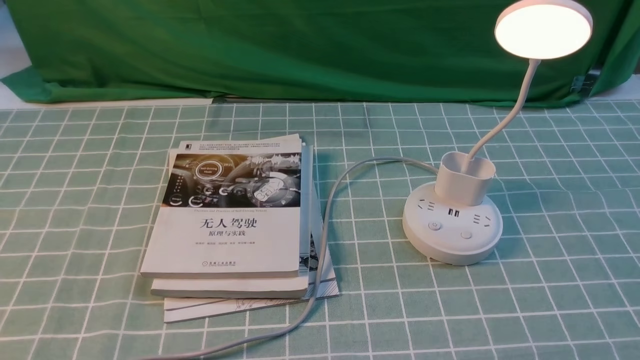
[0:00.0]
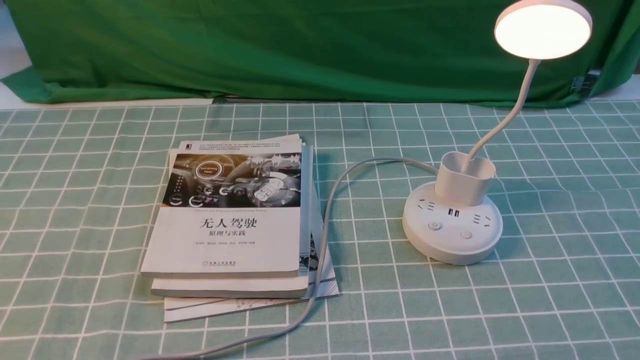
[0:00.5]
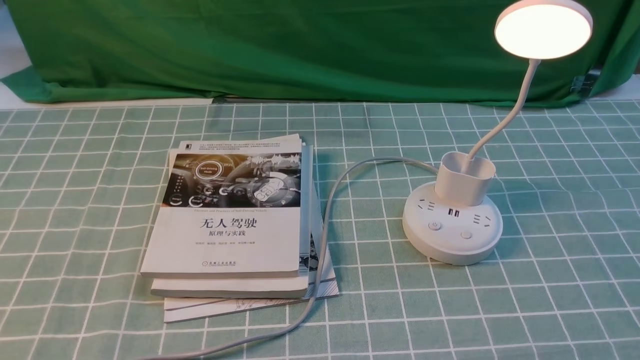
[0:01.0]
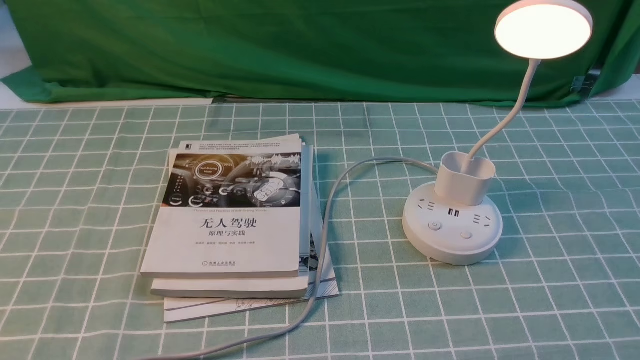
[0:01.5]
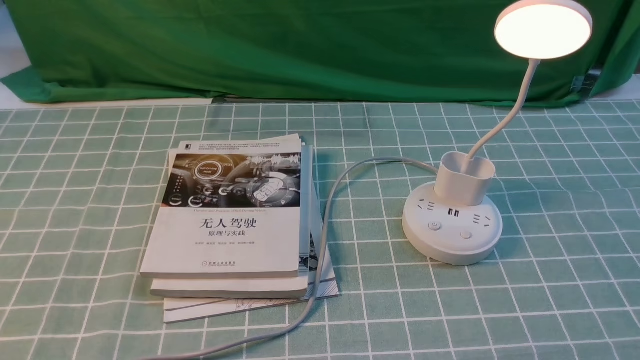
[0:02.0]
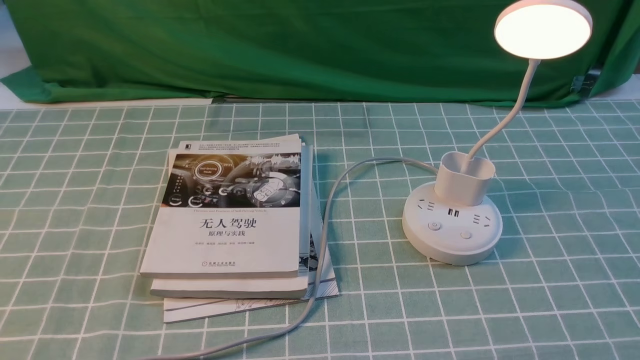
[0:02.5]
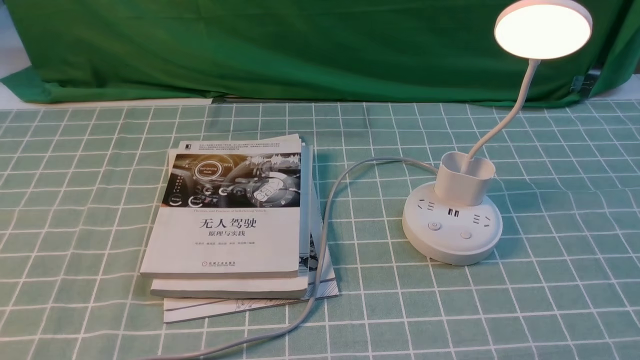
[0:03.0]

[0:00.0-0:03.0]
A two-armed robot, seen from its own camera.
0:01.5 to 0:03.0: Neither gripper changes place.

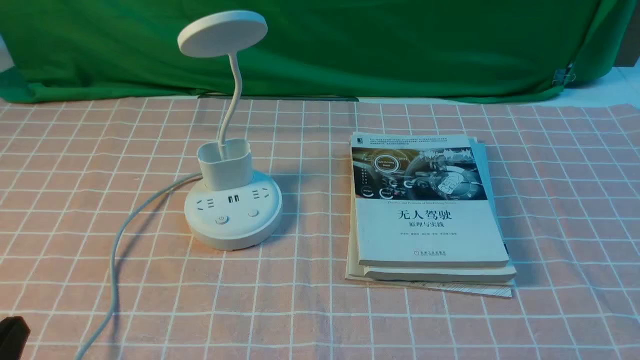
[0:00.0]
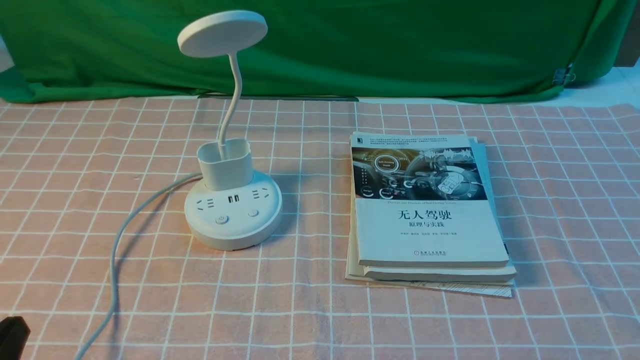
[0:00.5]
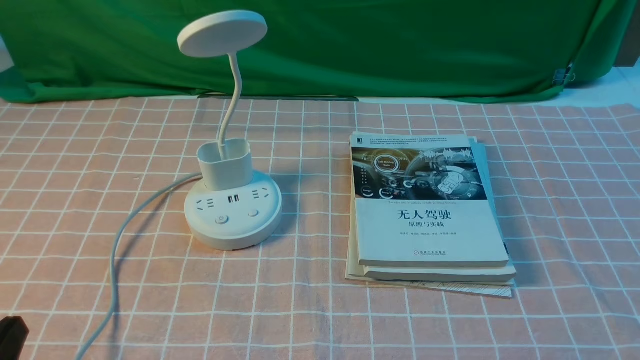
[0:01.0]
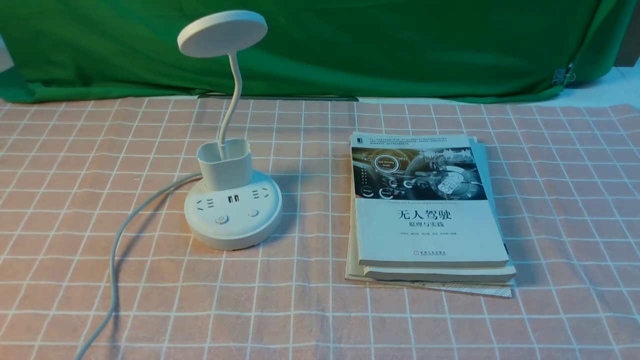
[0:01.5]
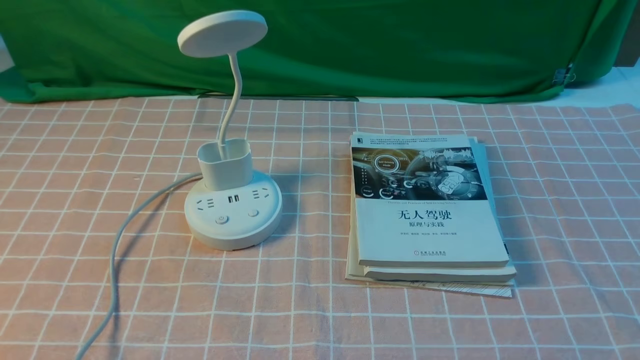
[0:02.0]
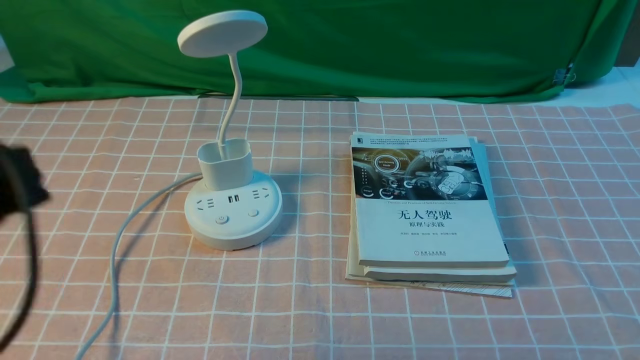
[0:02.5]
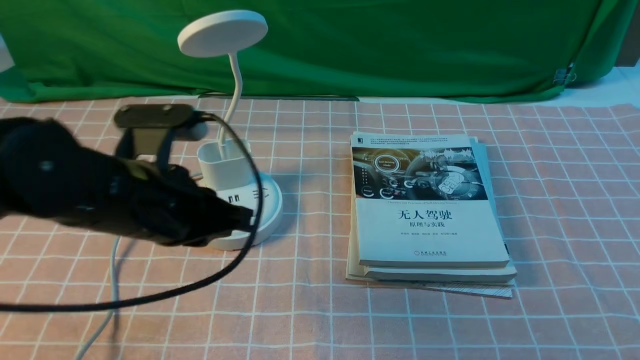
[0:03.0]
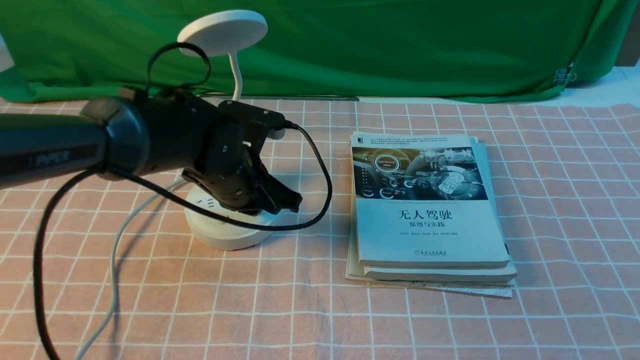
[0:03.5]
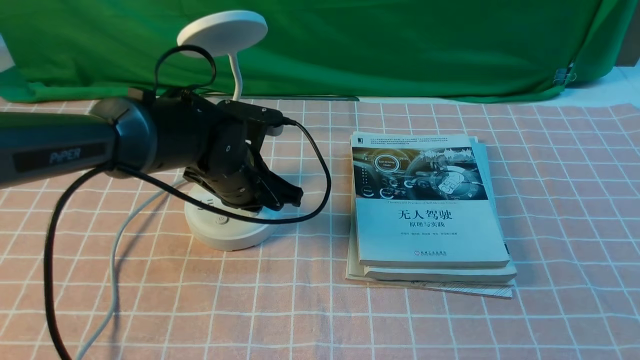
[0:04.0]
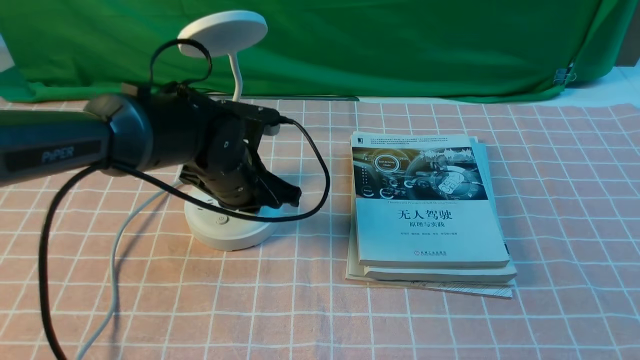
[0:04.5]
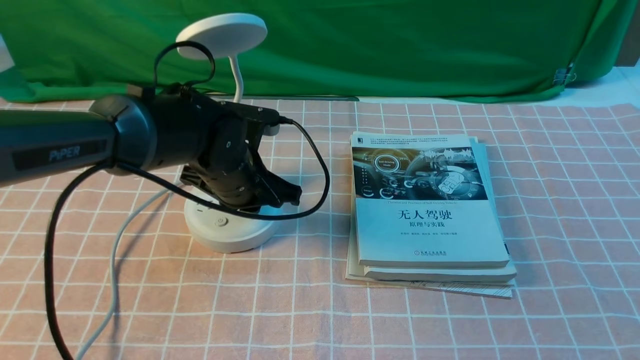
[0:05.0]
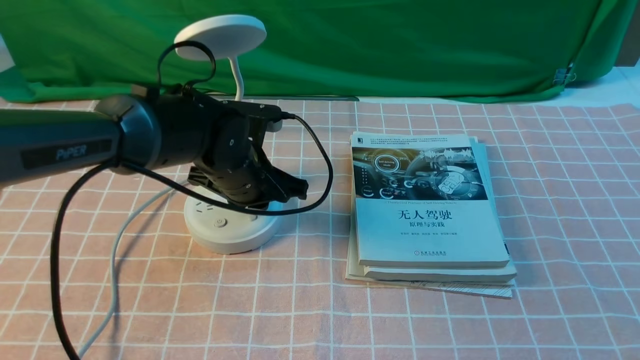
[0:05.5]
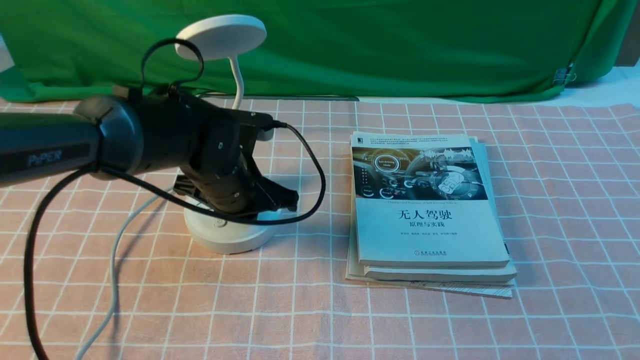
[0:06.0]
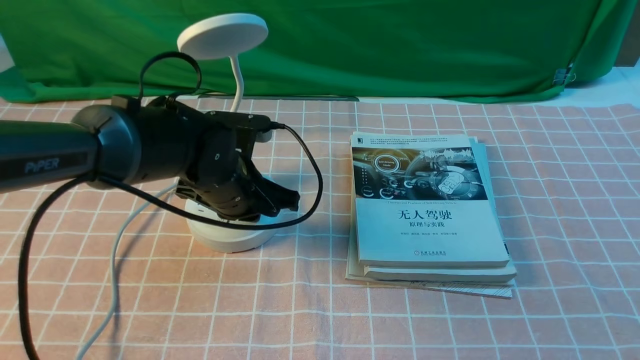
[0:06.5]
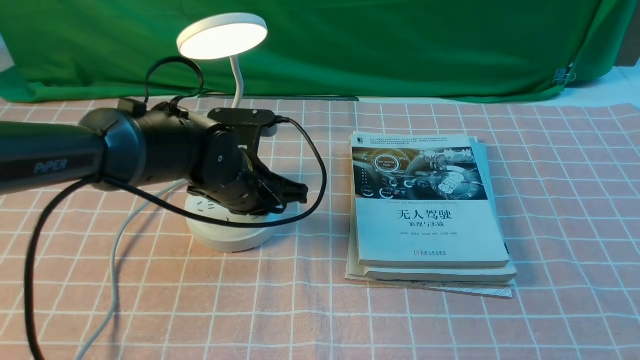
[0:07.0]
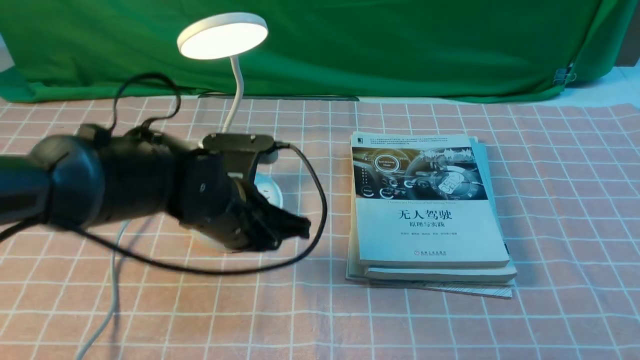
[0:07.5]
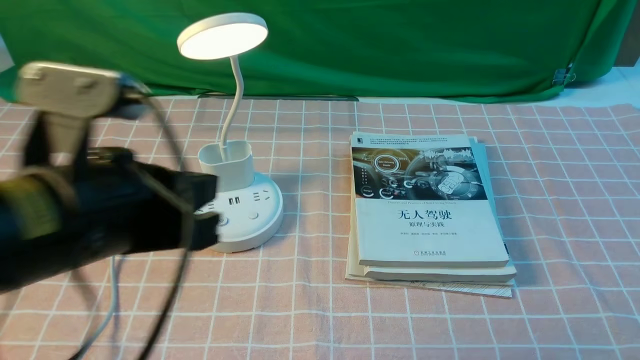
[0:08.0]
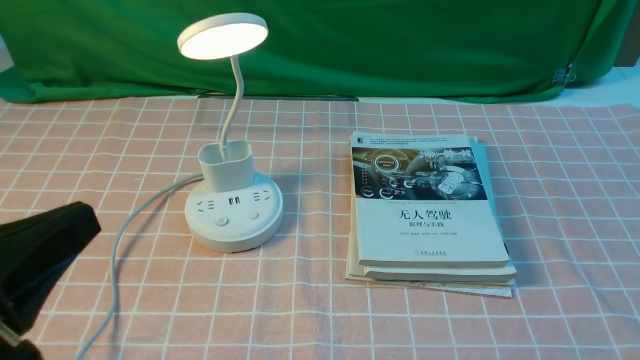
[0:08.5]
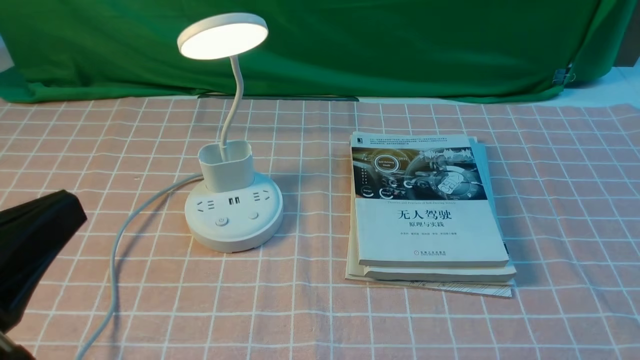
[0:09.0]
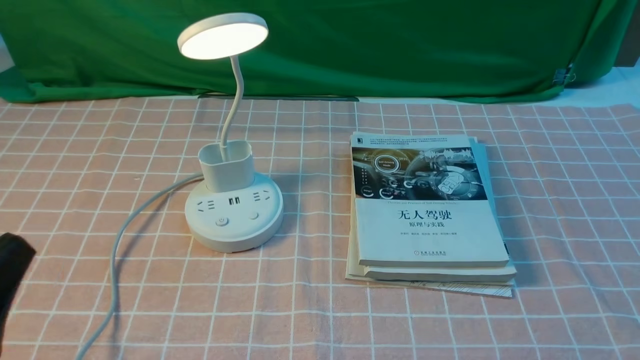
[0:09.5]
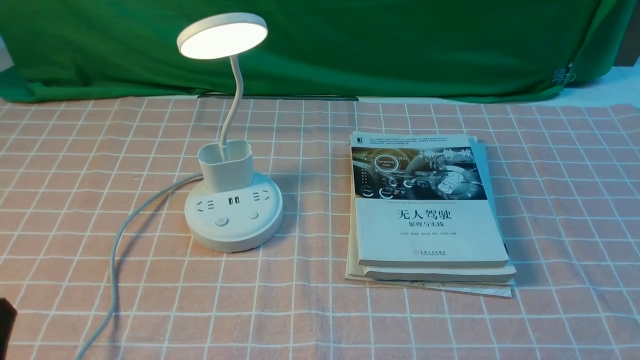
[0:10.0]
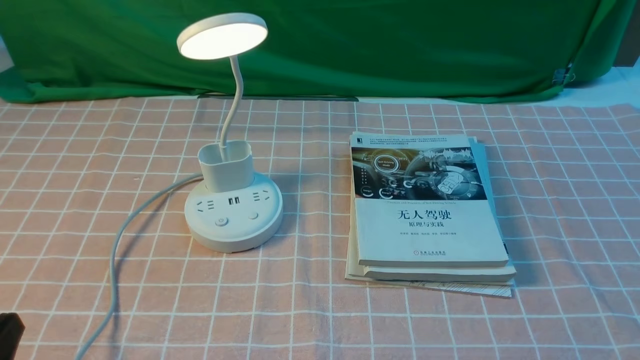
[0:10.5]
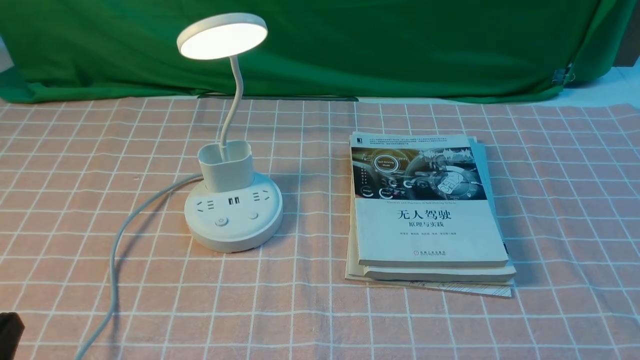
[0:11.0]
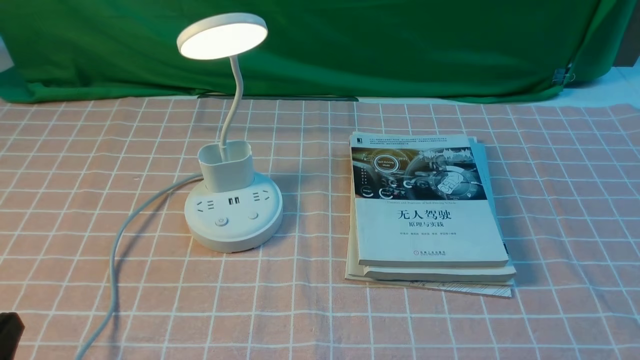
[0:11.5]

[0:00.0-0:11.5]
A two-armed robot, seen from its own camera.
Step, 0:00.0 to 0:07.0: use the left arm to press the button switch on the lamp holder.
0:02.0 to 0:04.0: The left gripper moves forward, to the right and downward, some 40 cm, and closes.
0:04.0 to 0:06.0: The grippers move only a little.
0:06.0 to 0:07.5: The left gripper moves backward, approximately 5 cm.
0:07.5 to 0:09.5: The left gripper is displaced backward and to the left by about 30 cm.
0:09.5 to 0:11.5: The left gripper is displaced downward by roughly 5 cm.
